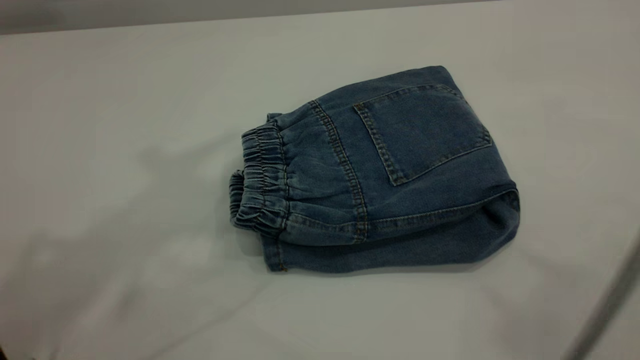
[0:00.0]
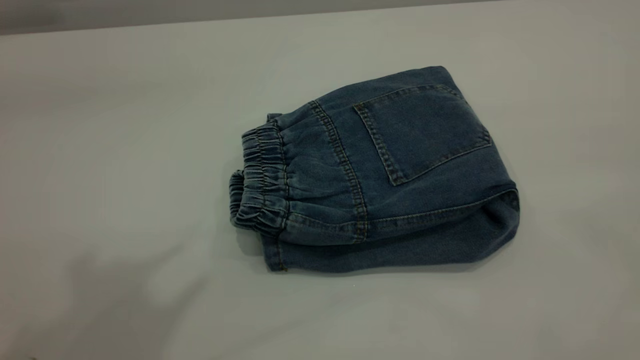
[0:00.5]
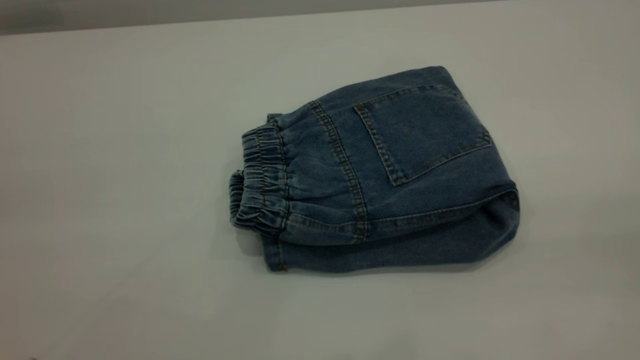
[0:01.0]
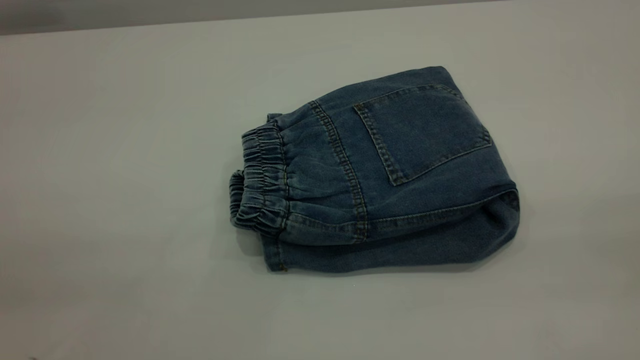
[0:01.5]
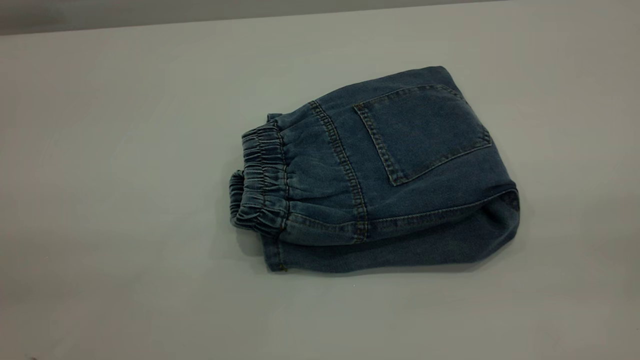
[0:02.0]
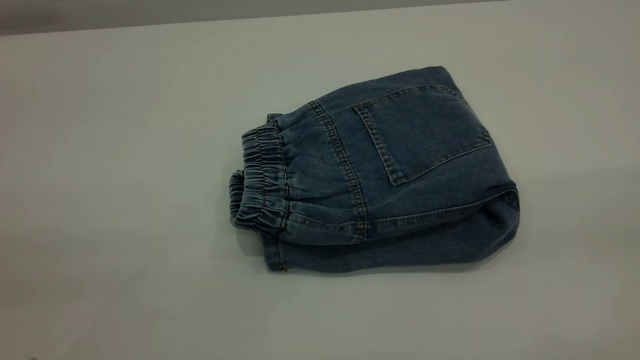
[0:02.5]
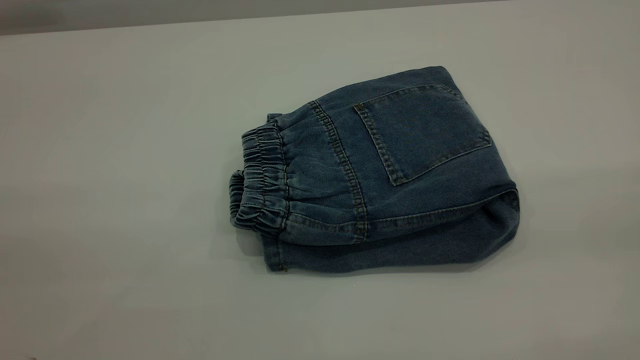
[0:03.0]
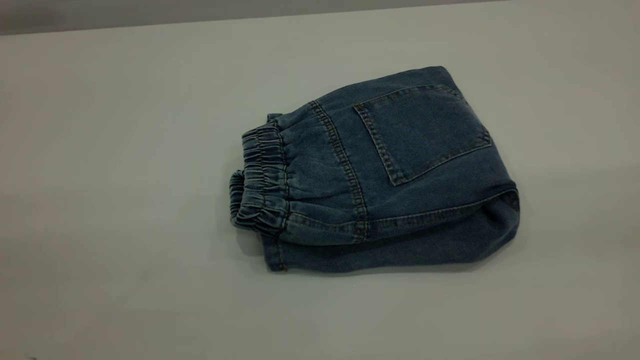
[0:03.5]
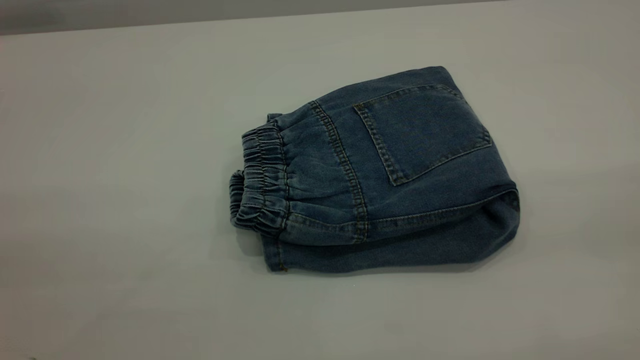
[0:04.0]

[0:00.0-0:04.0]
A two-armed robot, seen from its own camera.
0:00.0 to 0:02.0: The right gripper heads downward, backward and to the right, covering roughly 25 cm.
